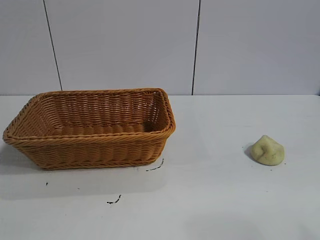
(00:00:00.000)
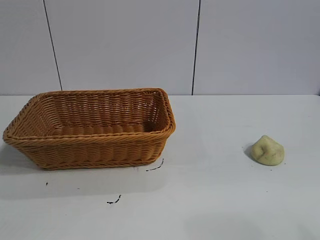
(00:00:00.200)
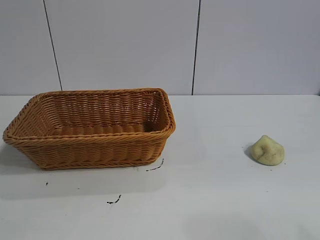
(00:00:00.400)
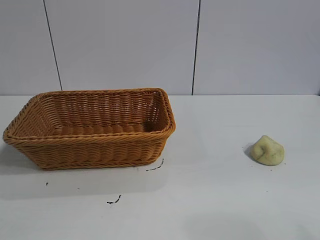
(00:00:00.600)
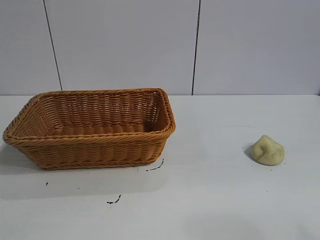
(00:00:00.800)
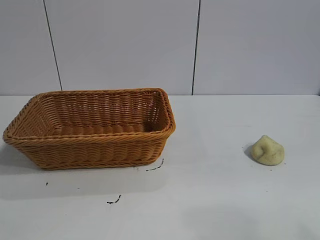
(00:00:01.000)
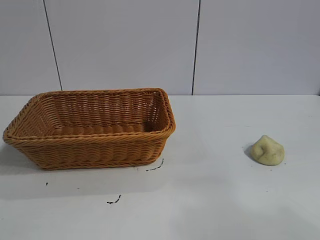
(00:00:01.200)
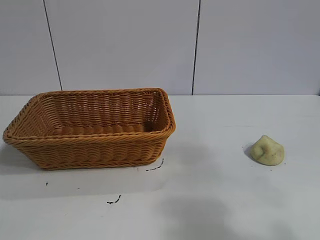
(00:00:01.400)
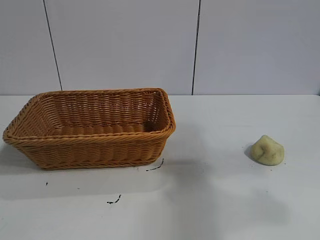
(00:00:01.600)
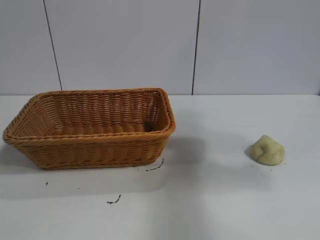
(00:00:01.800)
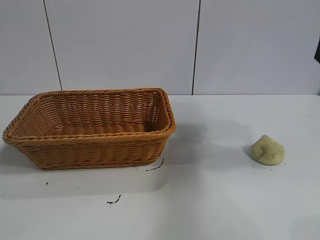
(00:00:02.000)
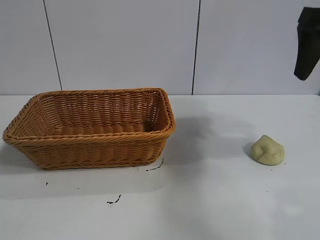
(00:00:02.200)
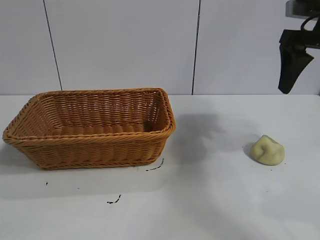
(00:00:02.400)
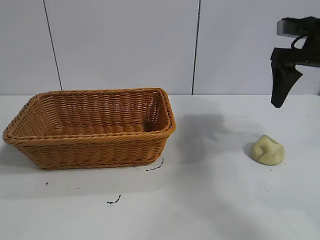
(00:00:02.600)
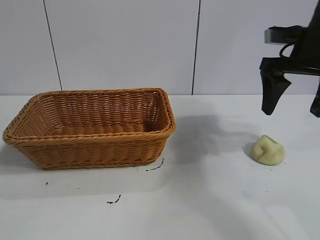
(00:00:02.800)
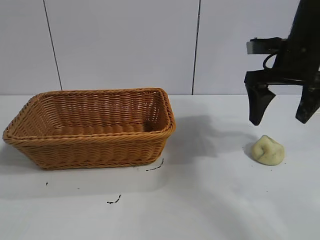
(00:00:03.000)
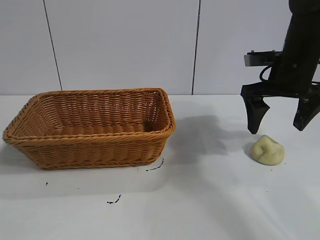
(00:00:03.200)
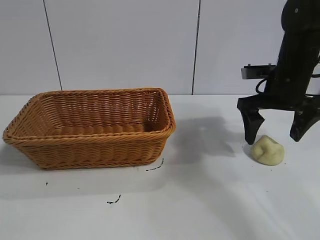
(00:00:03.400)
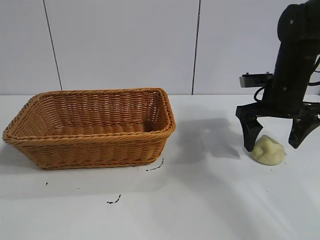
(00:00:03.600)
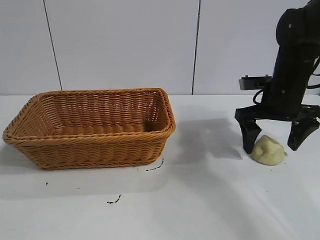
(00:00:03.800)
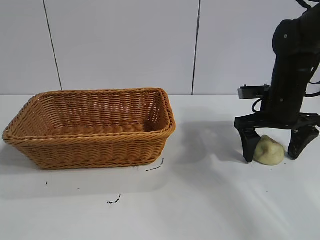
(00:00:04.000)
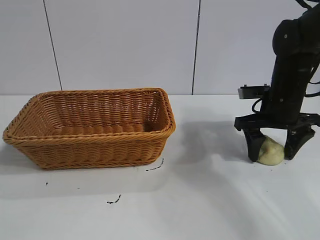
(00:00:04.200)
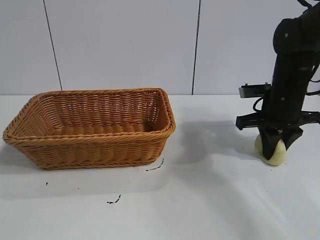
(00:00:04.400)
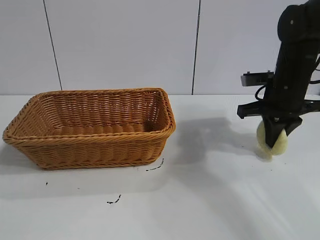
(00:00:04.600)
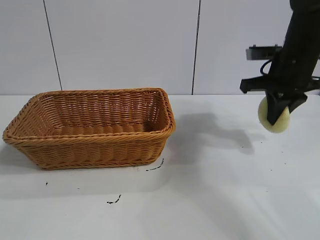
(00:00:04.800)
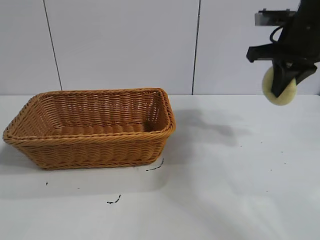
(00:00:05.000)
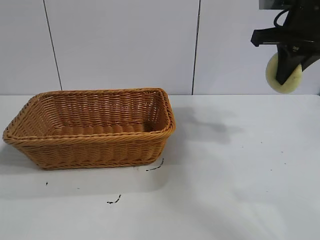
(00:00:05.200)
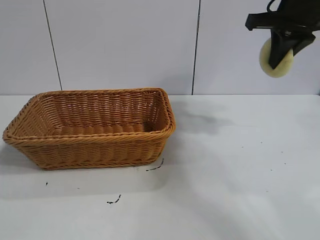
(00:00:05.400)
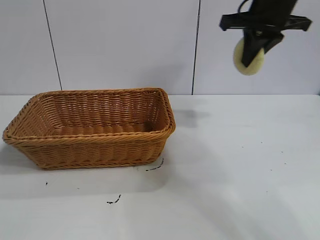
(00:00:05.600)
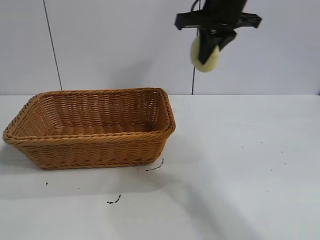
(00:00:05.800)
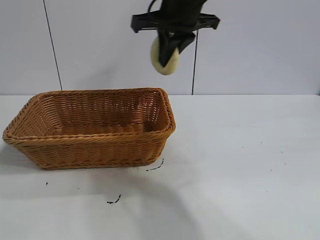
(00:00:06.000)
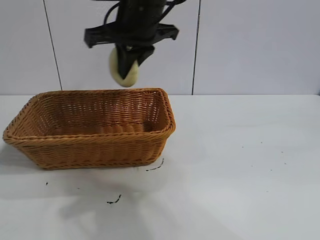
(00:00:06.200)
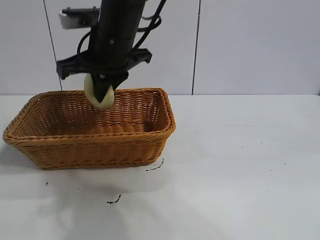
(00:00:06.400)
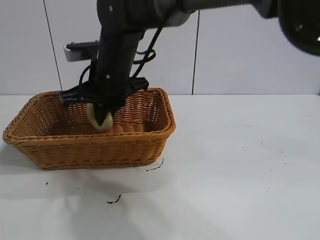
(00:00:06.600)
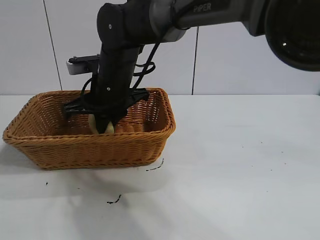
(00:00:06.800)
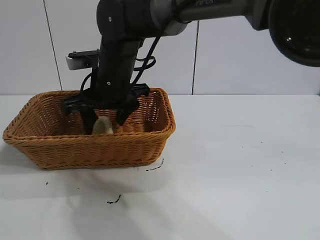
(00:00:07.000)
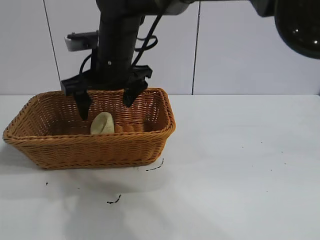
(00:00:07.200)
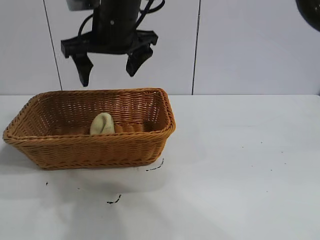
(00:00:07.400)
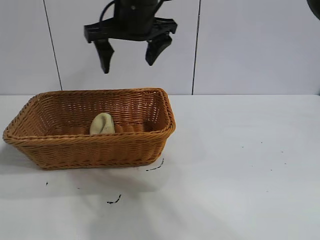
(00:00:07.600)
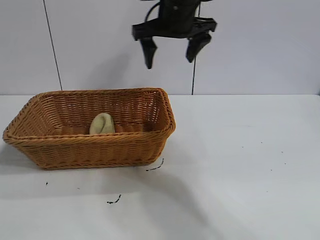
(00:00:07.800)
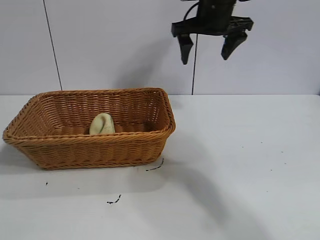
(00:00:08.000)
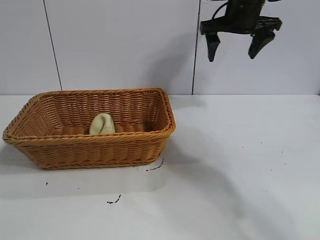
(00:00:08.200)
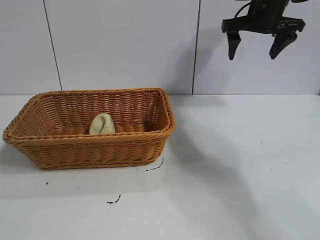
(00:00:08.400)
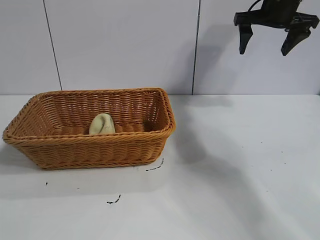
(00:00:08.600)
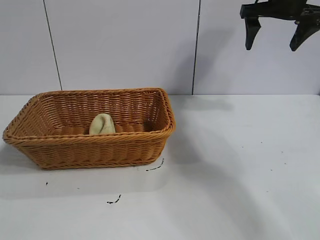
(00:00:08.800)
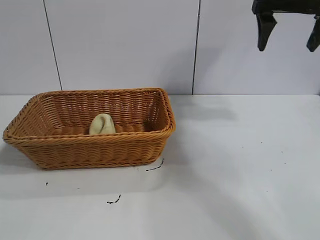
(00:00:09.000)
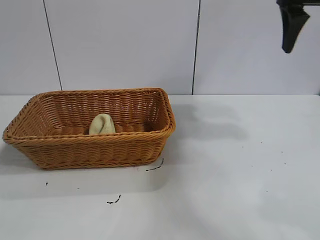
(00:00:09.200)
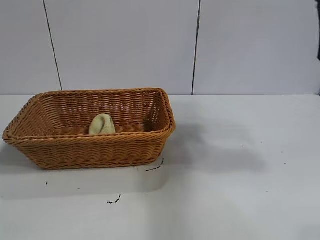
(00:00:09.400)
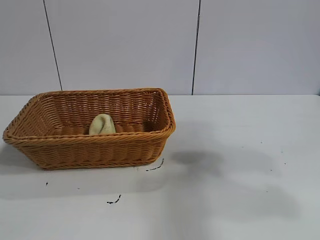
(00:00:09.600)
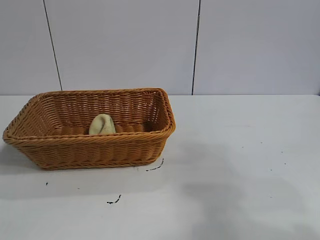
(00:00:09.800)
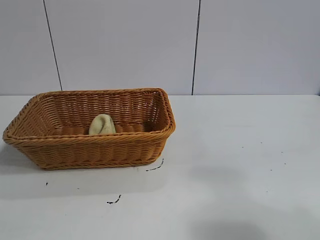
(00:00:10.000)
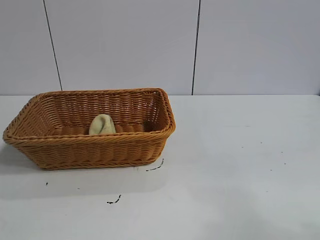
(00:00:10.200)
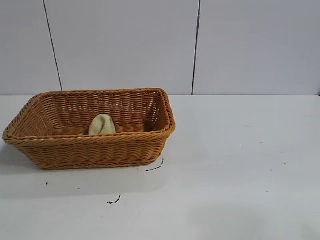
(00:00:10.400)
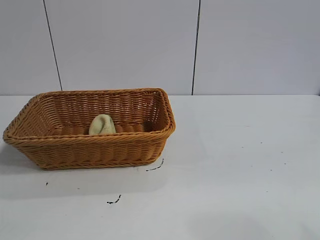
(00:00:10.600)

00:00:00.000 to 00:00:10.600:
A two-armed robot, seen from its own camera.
Task of the whole recording: pick up the egg yolk pastry and put it into the basket.
Step, 00:00:01.000 to 00:00:04.200: Grasp egg yolk pastry with right gripper.
Step, 00:00:04.600 to 00:00:07.200: Place the egg yolk pastry in the basket with right gripper.

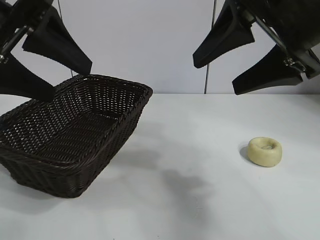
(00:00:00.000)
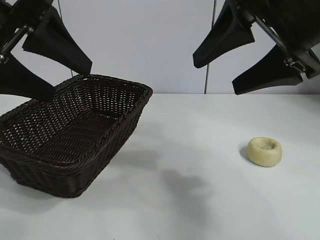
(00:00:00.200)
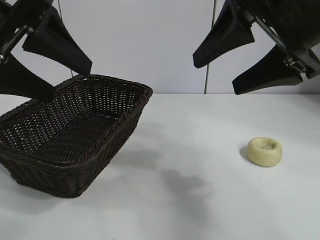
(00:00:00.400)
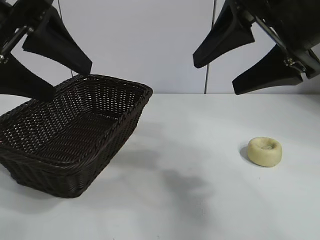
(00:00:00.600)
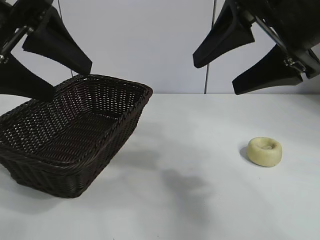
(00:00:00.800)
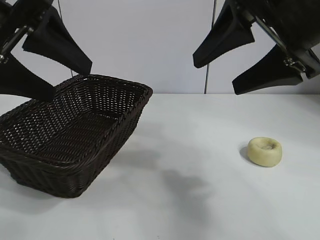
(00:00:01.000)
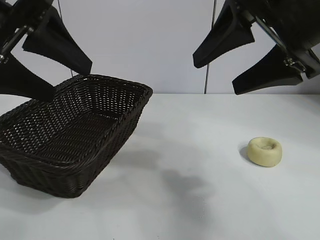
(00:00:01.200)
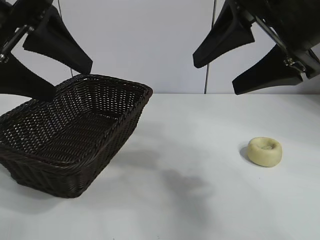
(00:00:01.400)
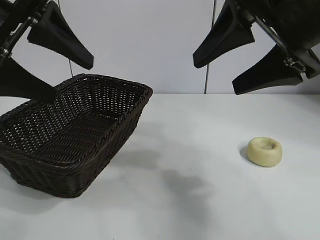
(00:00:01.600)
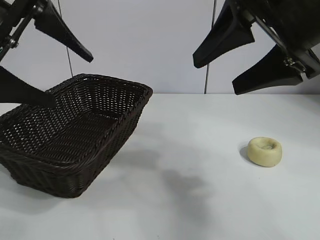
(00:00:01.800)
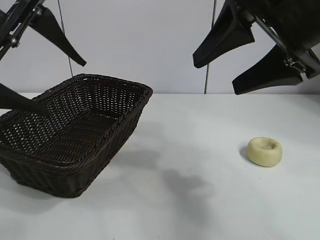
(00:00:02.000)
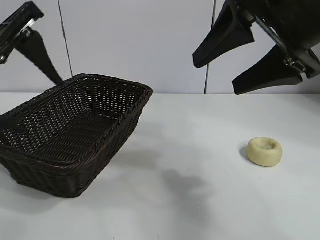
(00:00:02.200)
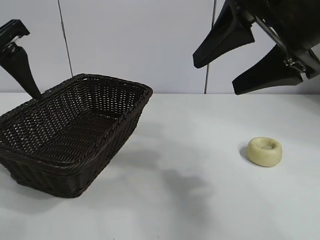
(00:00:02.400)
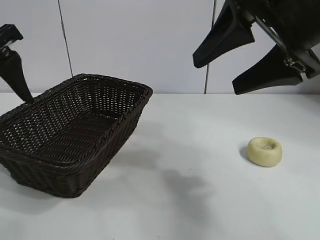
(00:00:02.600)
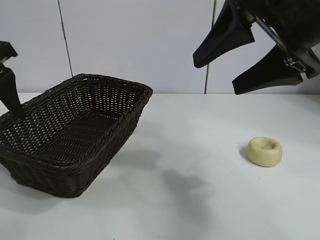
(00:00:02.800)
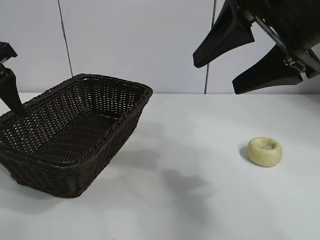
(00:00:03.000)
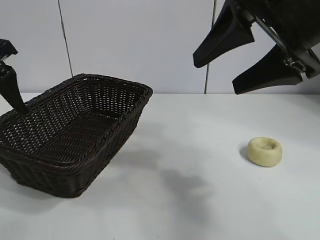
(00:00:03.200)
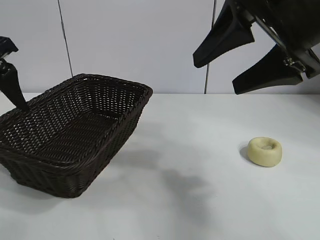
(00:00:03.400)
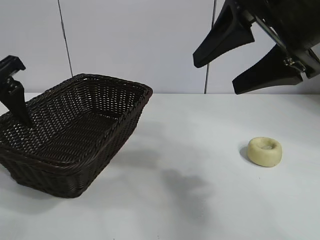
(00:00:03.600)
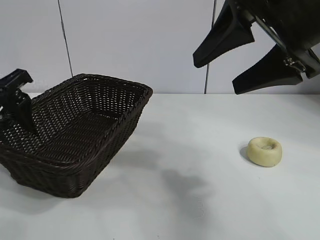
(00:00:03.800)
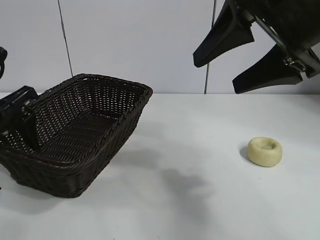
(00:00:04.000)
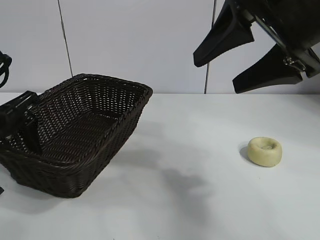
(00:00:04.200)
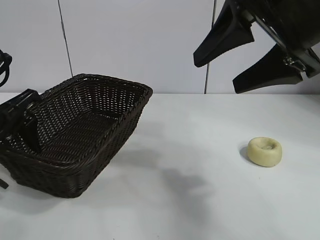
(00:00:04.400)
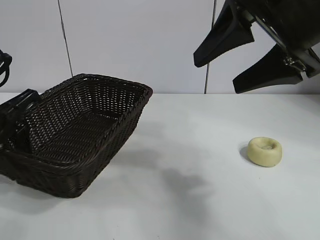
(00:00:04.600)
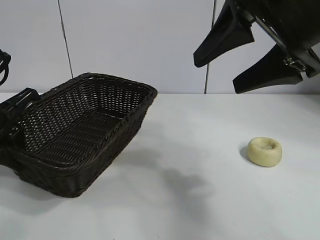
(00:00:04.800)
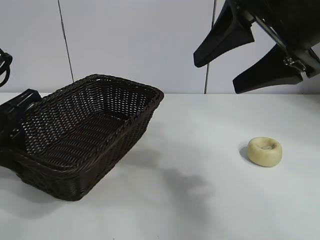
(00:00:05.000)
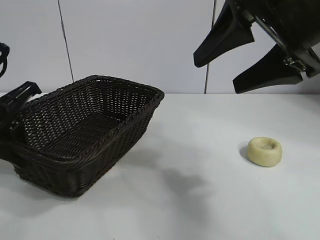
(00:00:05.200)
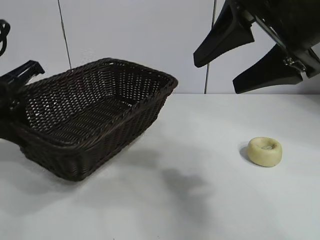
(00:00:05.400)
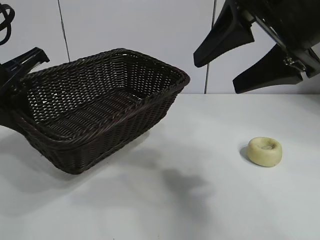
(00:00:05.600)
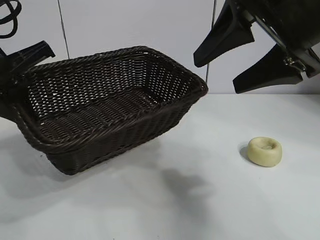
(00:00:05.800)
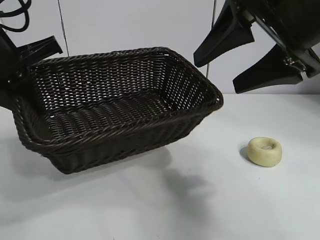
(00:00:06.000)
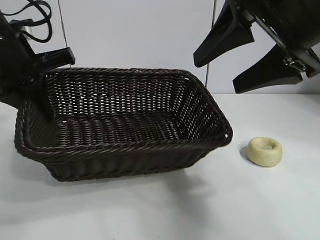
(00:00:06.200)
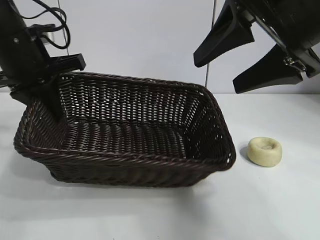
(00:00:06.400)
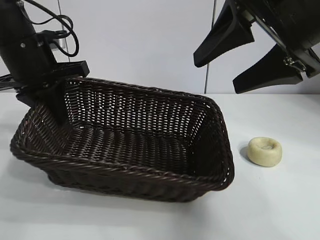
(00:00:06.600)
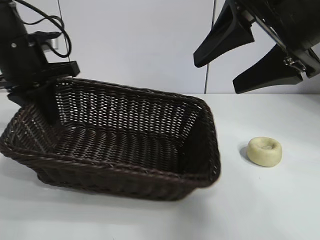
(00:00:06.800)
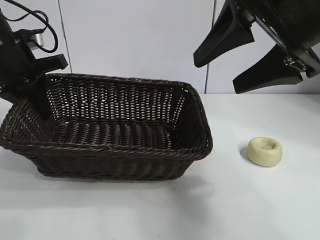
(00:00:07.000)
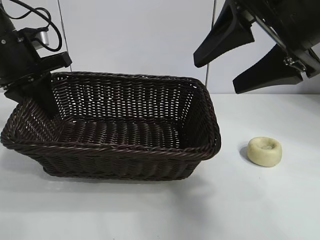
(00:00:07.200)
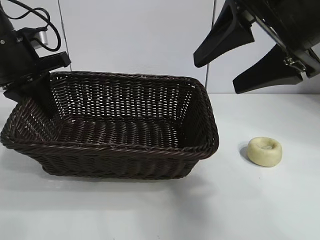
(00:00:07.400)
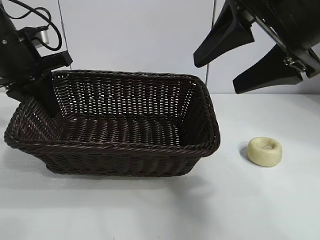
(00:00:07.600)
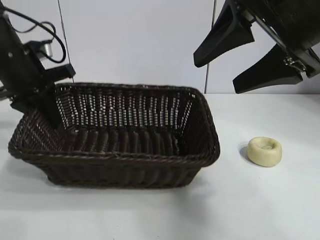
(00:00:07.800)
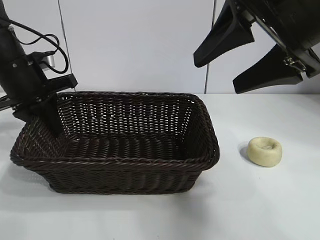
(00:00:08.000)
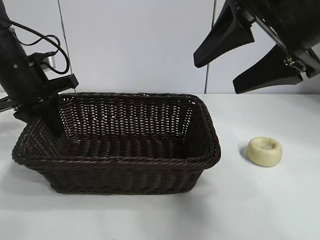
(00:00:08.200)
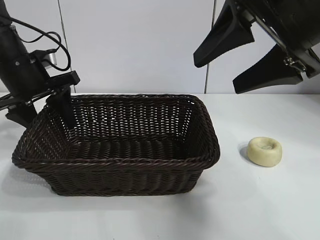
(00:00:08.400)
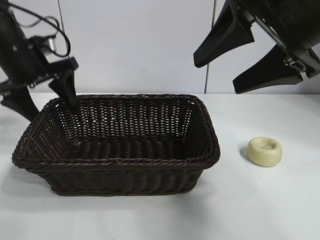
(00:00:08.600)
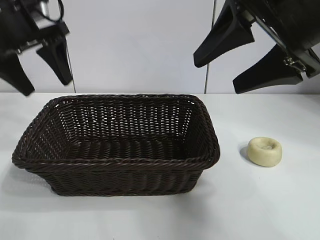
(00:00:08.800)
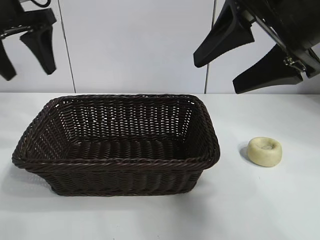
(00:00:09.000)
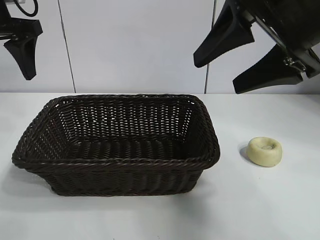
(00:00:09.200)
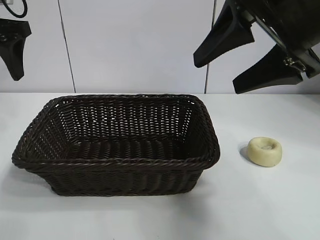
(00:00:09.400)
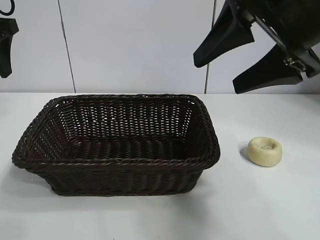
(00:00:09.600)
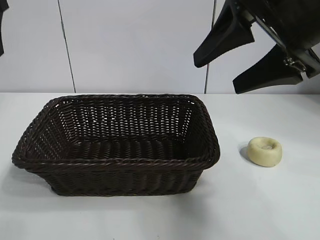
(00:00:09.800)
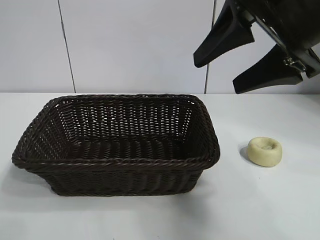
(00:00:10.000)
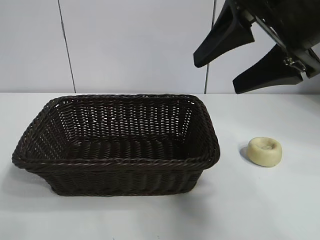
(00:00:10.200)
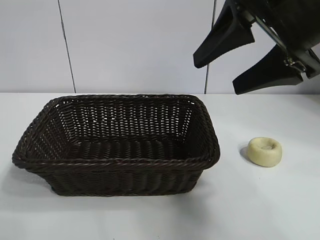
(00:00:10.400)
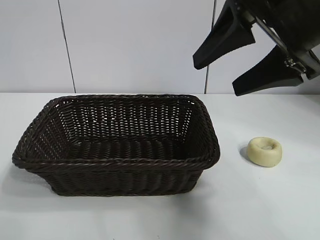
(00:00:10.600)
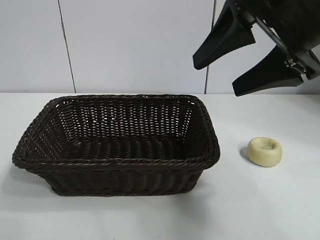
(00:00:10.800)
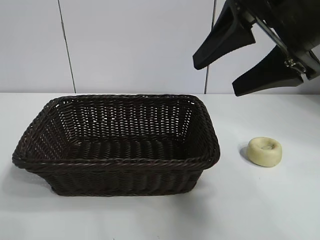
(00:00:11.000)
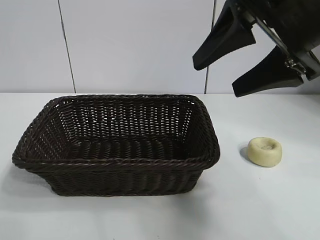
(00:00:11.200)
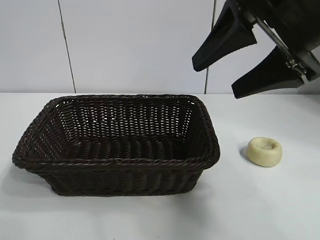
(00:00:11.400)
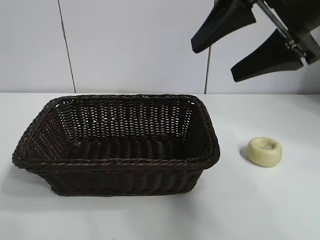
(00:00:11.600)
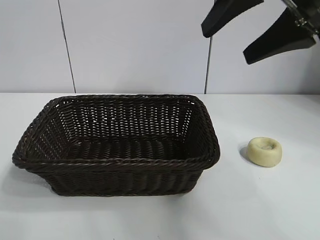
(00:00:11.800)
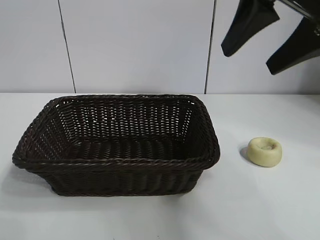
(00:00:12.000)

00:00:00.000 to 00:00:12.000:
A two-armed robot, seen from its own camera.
Task of the whole recording: pick up the egg yolk pastry and put it into the basket.
Step, 00:00:01.400 to 00:00:04.800: Grasp the basket with left gripper.
Step, 00:00:05.200 to 00:00:08.600: Place the basket in the center of view with left gripper.
